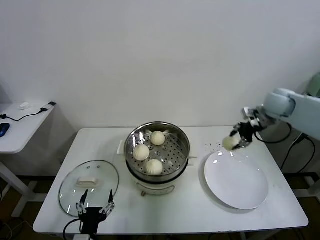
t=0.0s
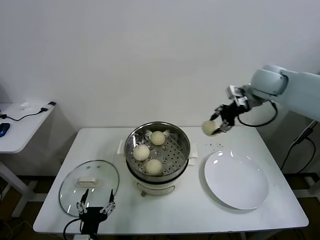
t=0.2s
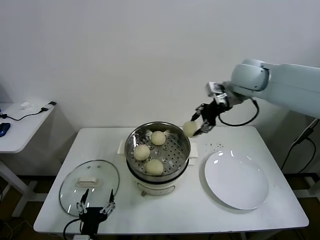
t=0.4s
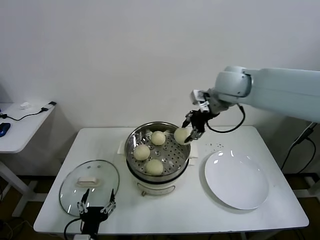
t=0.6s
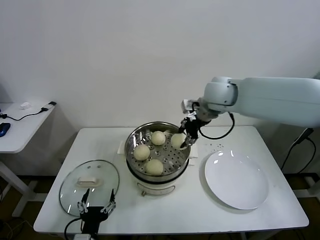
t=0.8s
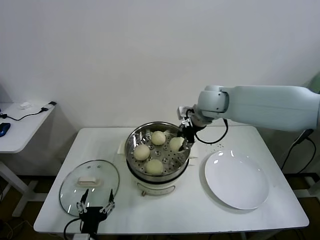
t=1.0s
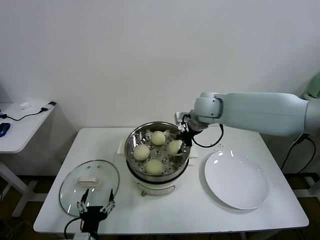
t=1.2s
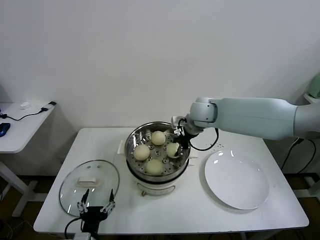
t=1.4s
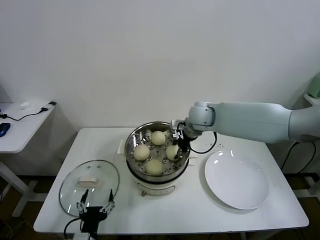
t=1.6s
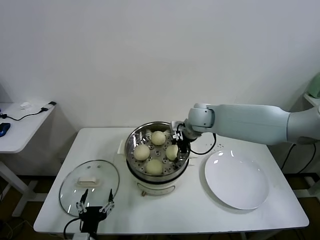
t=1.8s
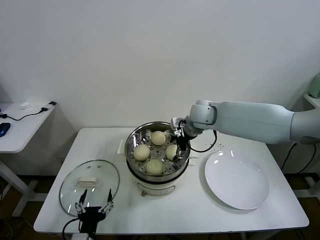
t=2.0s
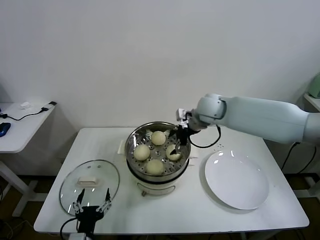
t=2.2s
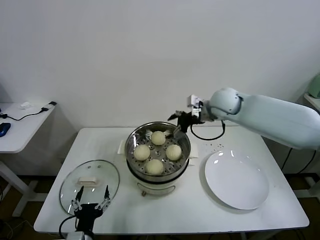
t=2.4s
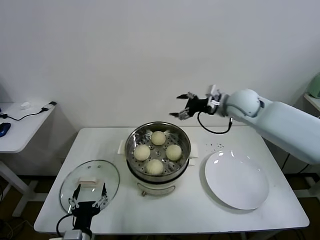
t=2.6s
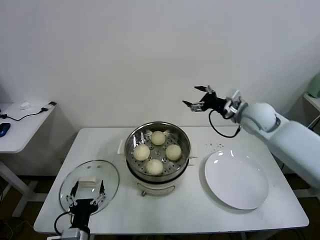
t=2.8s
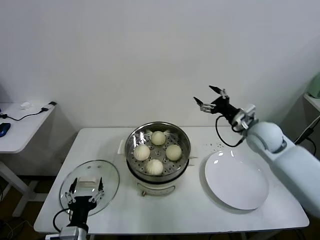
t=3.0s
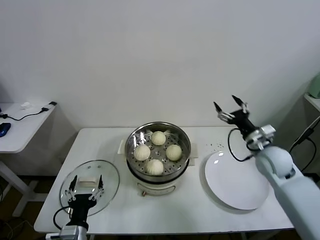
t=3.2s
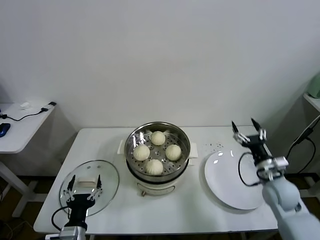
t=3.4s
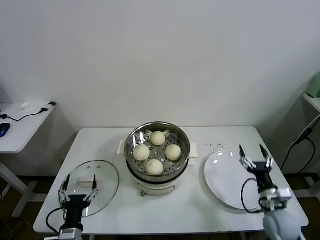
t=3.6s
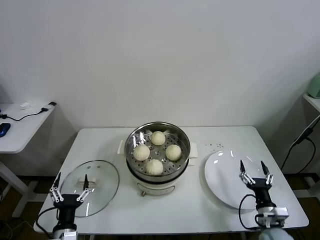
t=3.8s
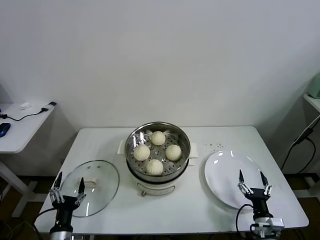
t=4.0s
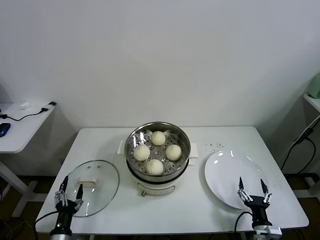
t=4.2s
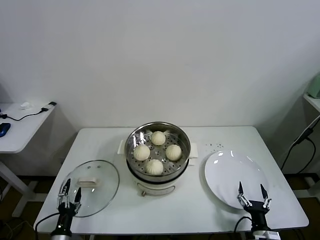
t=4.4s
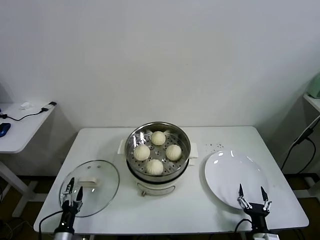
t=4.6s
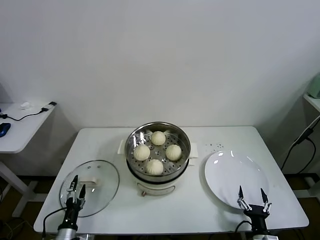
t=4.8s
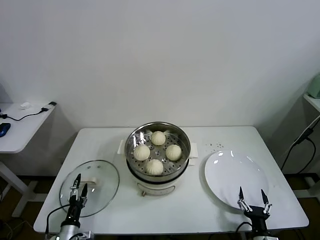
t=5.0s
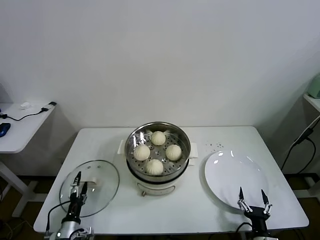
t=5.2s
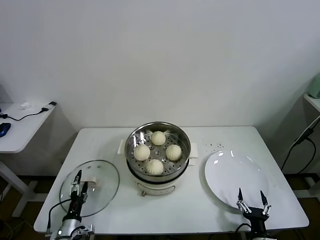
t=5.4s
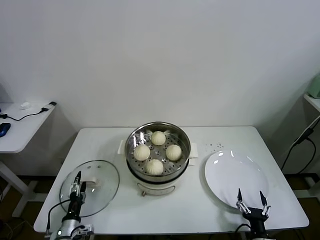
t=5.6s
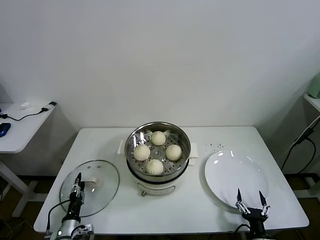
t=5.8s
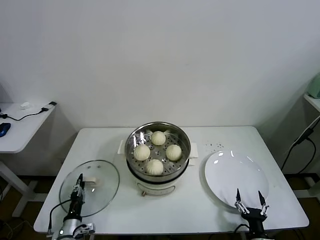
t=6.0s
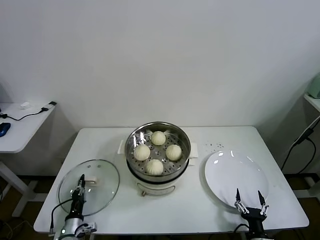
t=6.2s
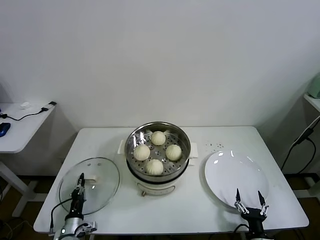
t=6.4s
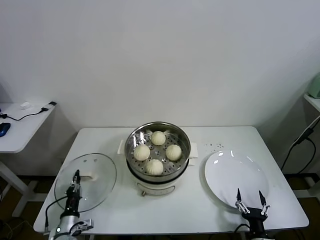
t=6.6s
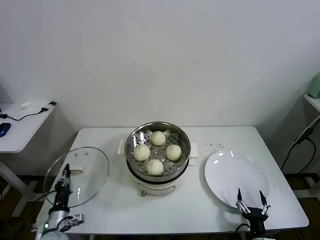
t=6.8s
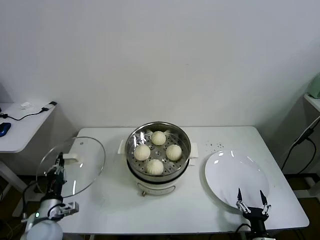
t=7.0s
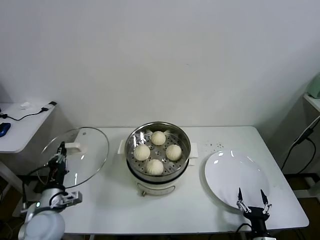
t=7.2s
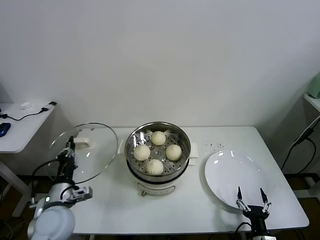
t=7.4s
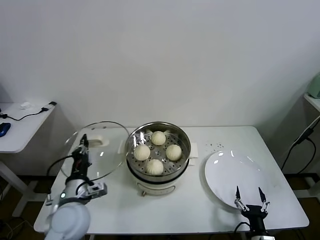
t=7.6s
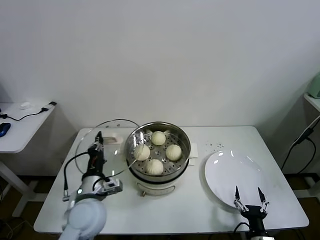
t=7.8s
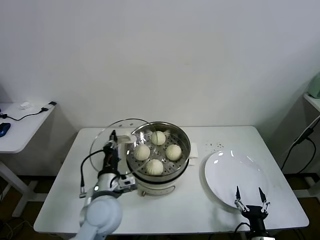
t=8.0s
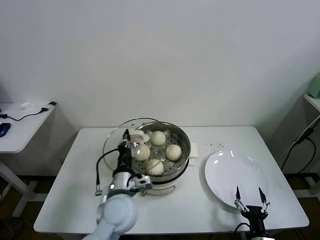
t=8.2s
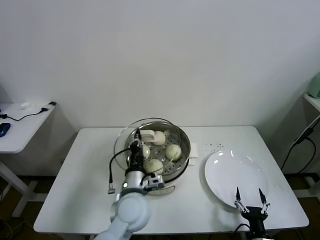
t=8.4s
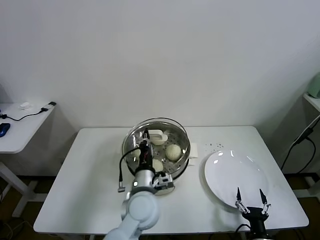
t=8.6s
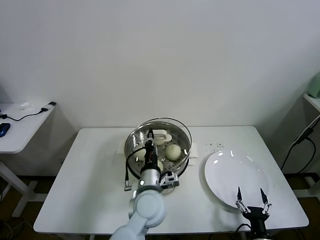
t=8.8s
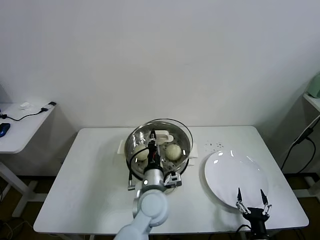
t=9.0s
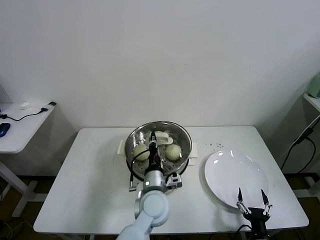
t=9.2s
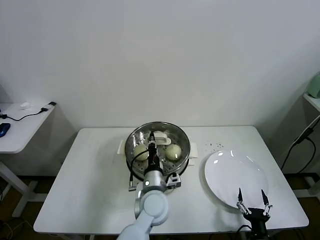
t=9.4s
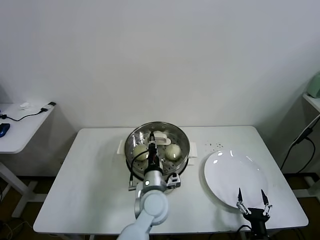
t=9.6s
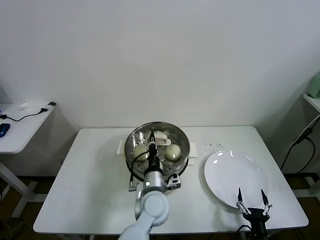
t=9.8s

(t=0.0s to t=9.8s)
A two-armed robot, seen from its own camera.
Task of the whole recording: take steamed baozi put them in steamer.
Step, t=0.0s - t=1.8s: Place the baozi on the steamer with right gripper.
Step, t=2.0s - t=6.2s: Grasp the pot lid with left gripper.
t=0.0s - t=1.4s: The right gripper goes roughly 25 cm to the left.
t=1.4s - t=2.8s: The right gripper goes about 15 cm to the right, and opens its fingers.
t=2.8s - t=4.2s: The left gripper heads to the left and downward, covering about 15 cm. The right gripper heads downward and backward, covering approximately 50 cm.
t=4.2s - t=5.6s: The left gripper heads forward and downward, covering some 10 cm.
t=5.6s - t=7.0s: The left gripper goes some 10 cm upward, and closes.
t=7.0s - t=8.4s: The left gripper travels to the right and upward by about 30 cm.
t=8.4s - t=9.8s: The left gripper moves to the right, some 5 cm.

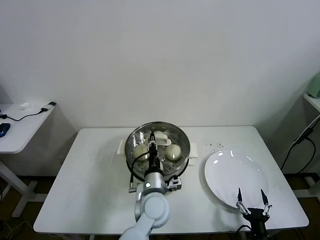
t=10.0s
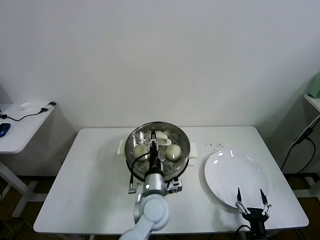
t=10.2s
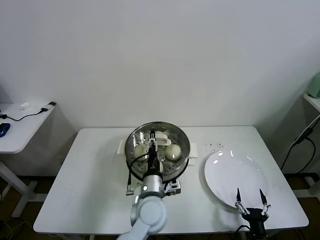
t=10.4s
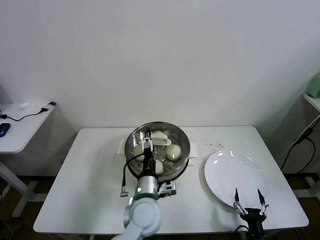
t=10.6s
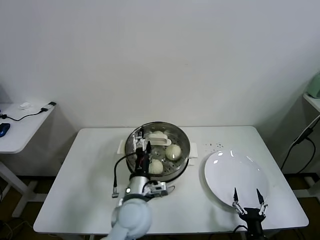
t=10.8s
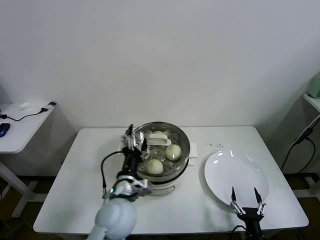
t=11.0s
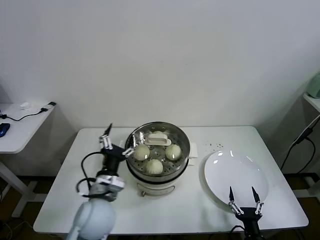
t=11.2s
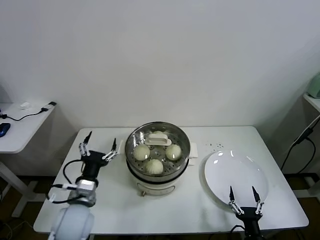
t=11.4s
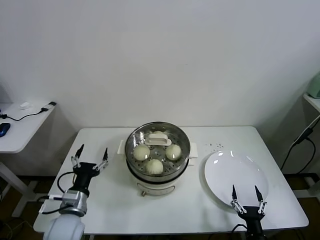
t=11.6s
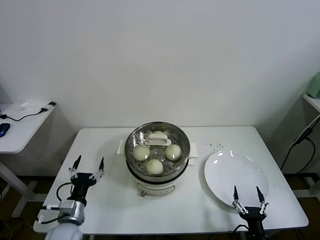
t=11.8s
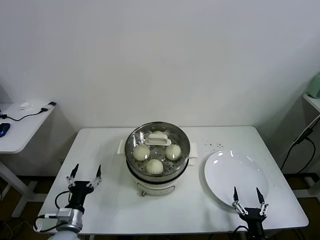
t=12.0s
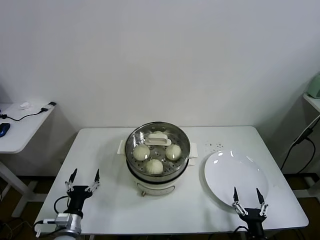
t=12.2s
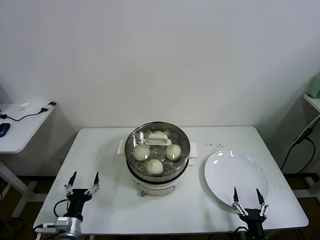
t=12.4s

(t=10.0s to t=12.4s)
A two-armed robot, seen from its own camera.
Task of the whole recording: take steamed baozi put them in steamer.
t=10.0s - t=11.2s: The left gripper goes some 15 cm to the left and upward, and opens up.
t=11.2s - t=12.4s: The left gripper shifts about 25 cm downward, to the left and backward.
